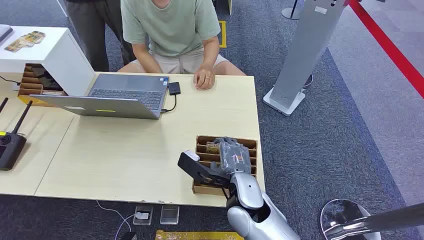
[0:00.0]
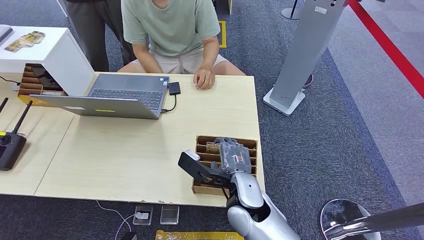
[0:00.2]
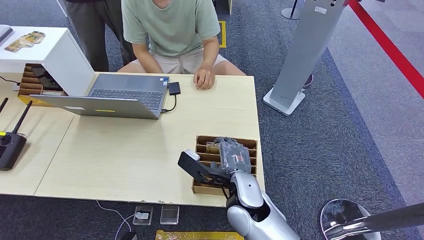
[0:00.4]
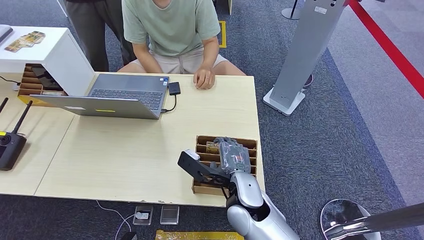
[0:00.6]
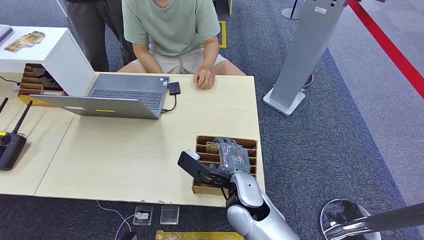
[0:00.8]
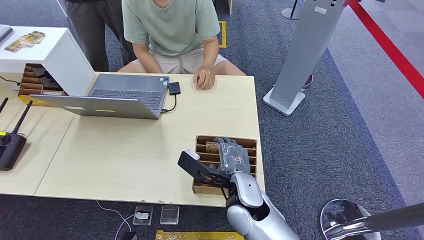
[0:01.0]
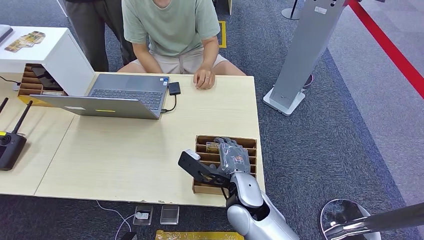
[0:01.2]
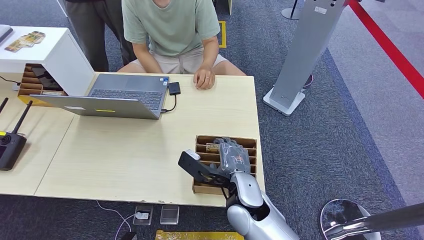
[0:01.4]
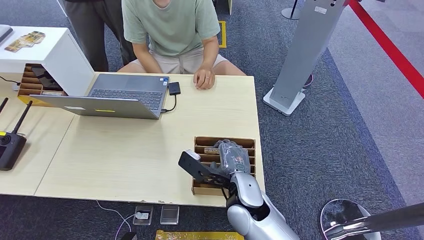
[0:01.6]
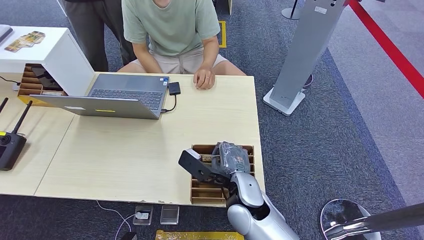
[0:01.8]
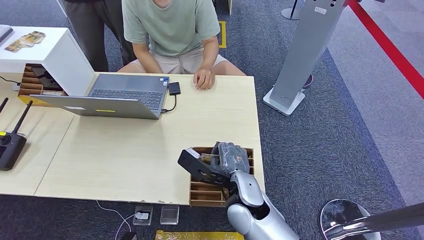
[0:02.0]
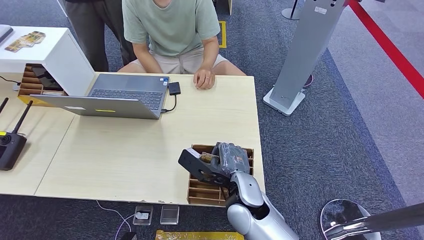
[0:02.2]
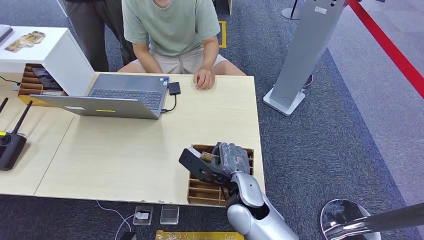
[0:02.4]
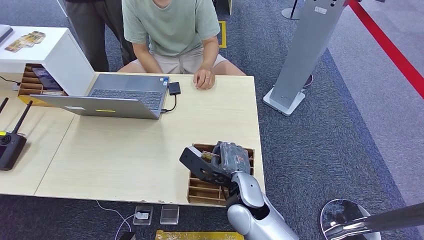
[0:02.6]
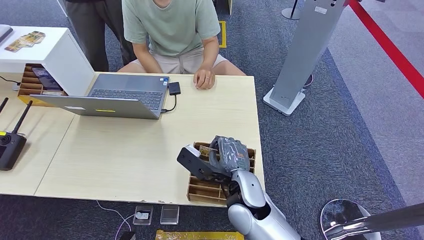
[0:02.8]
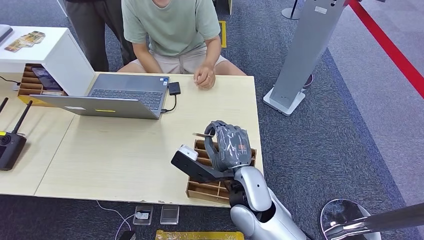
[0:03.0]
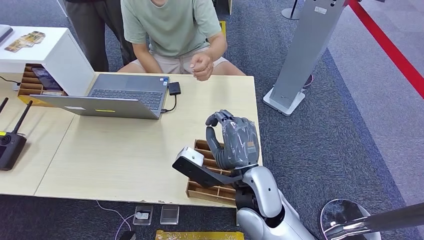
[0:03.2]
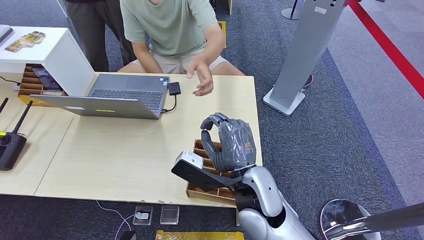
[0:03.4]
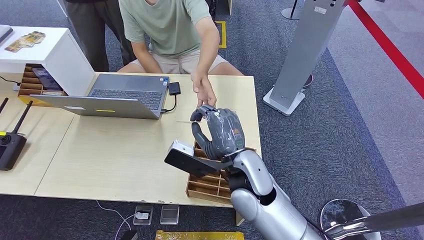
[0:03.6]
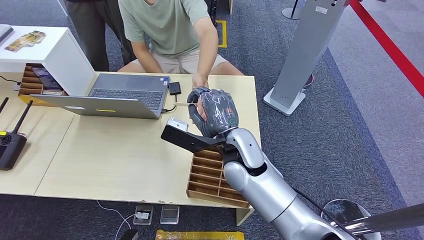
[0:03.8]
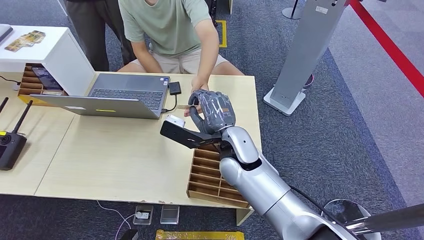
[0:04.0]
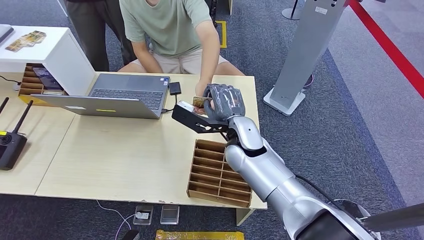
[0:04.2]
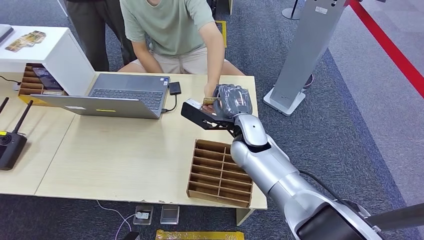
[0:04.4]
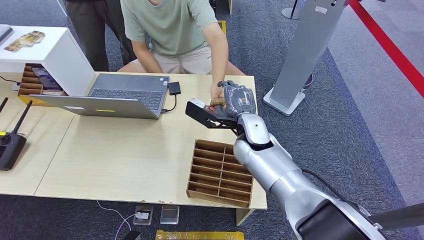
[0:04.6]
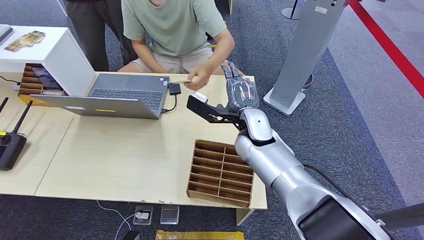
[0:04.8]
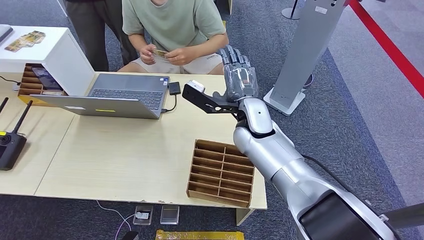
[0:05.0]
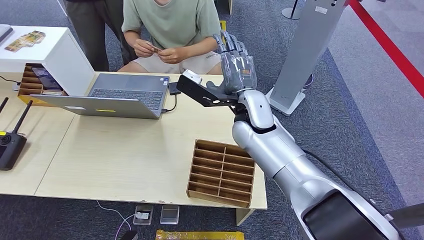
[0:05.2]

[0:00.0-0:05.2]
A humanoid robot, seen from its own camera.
Step, 0:00.0 to 0:03.0: Pick up the key card from the card box.
Step, 0:03.8 to 0:05.2: Hand the key card to the target.
0:01.8 to 0:03.4: The right hand goes about 5 cm upward.
